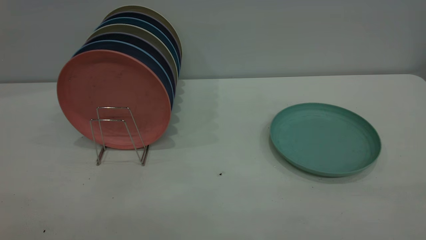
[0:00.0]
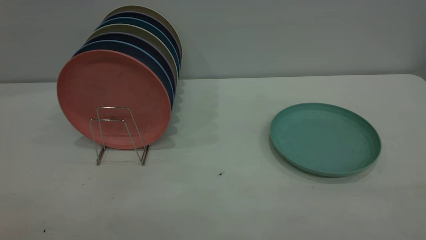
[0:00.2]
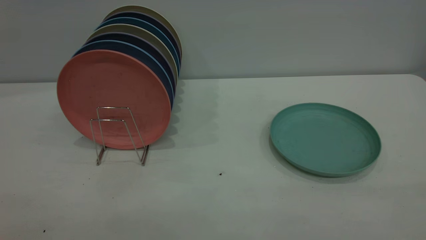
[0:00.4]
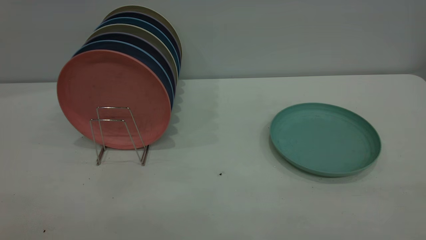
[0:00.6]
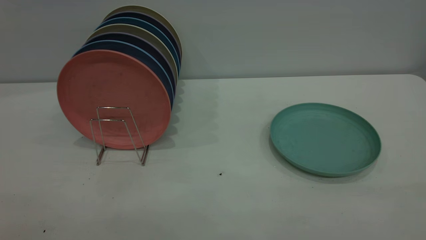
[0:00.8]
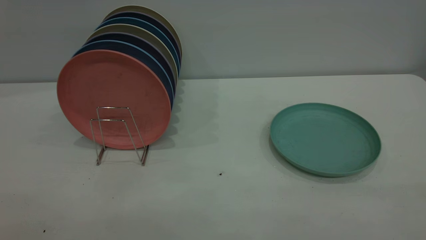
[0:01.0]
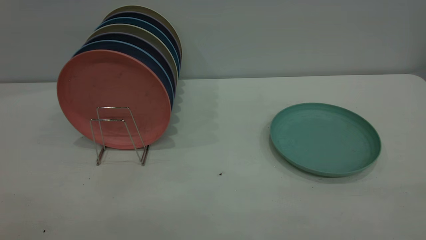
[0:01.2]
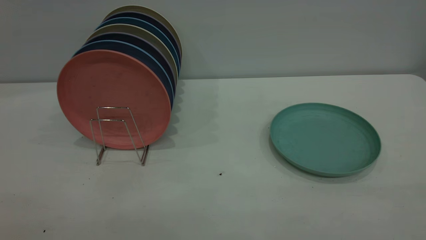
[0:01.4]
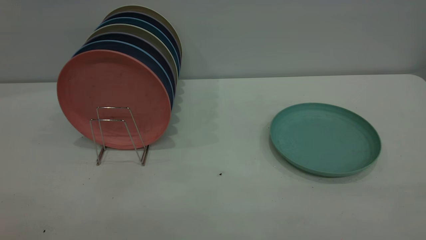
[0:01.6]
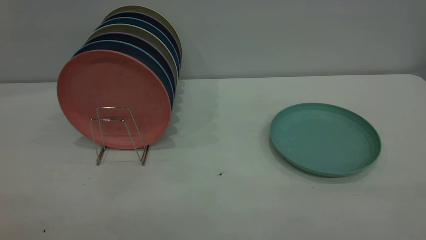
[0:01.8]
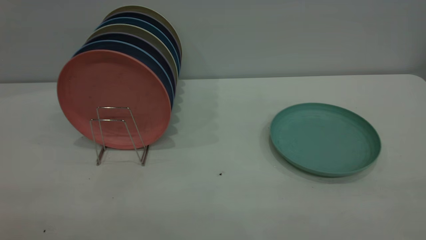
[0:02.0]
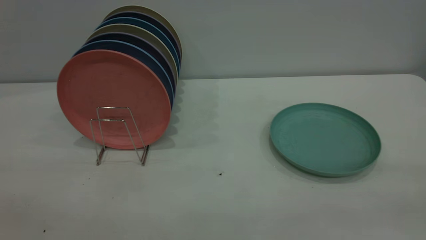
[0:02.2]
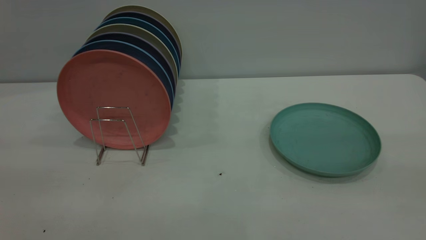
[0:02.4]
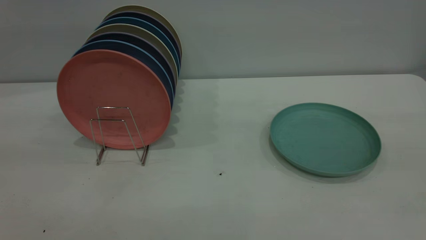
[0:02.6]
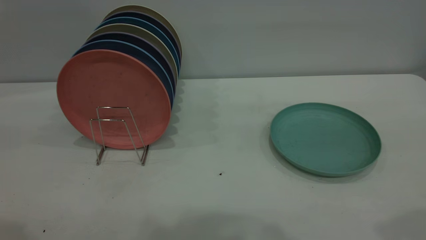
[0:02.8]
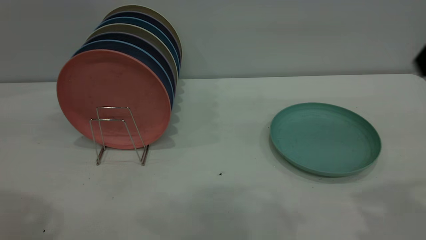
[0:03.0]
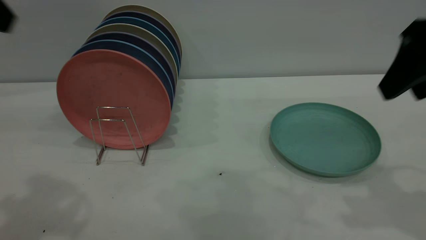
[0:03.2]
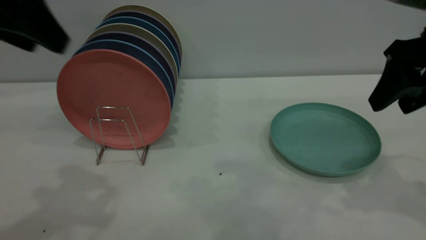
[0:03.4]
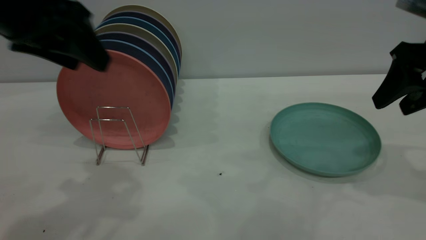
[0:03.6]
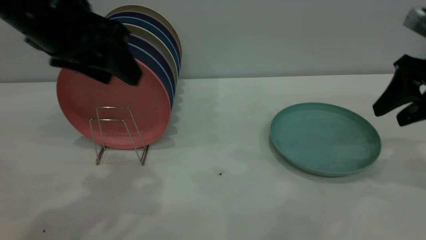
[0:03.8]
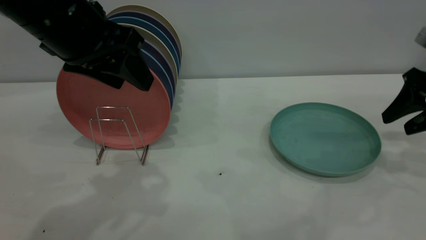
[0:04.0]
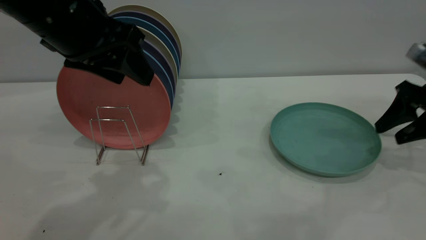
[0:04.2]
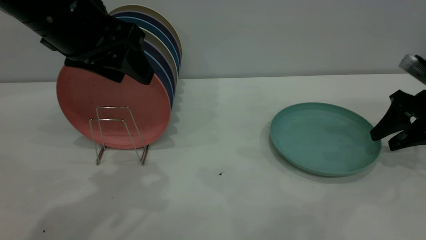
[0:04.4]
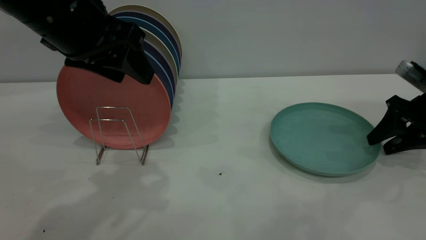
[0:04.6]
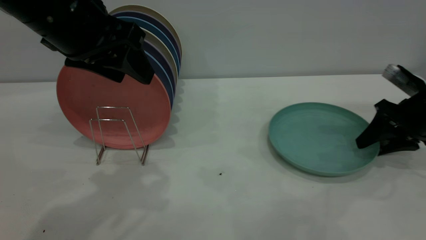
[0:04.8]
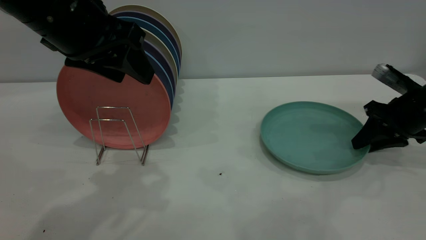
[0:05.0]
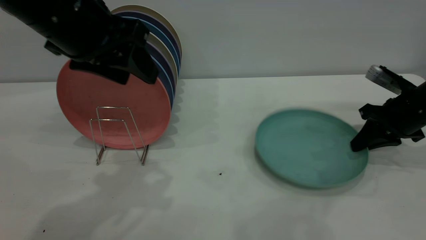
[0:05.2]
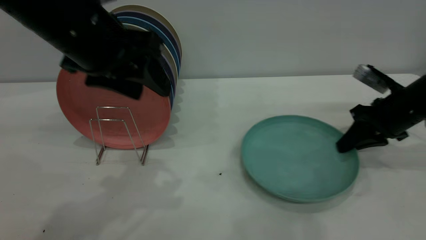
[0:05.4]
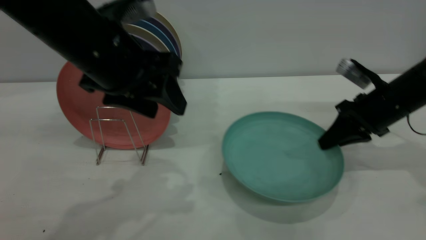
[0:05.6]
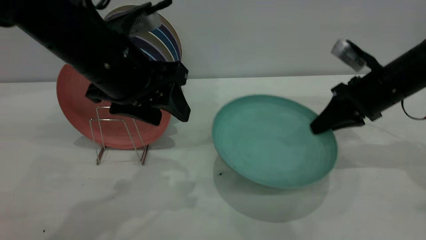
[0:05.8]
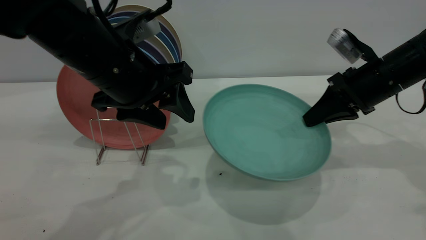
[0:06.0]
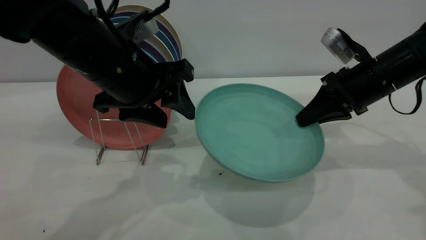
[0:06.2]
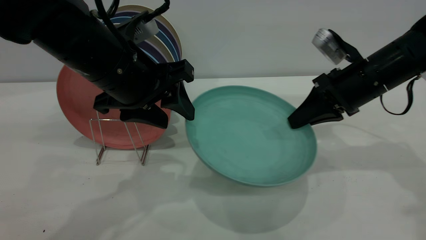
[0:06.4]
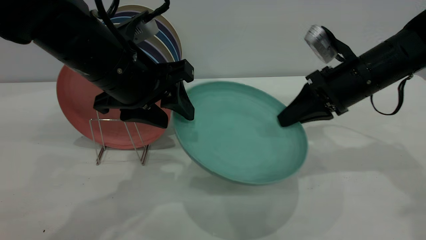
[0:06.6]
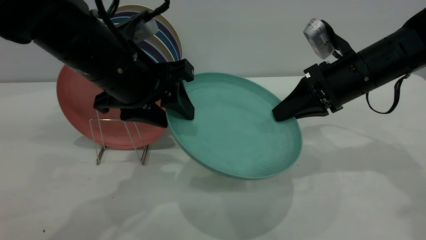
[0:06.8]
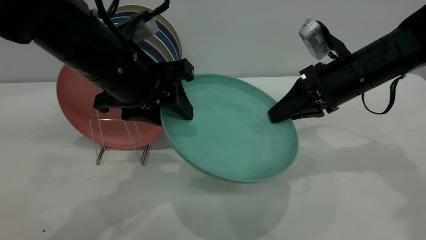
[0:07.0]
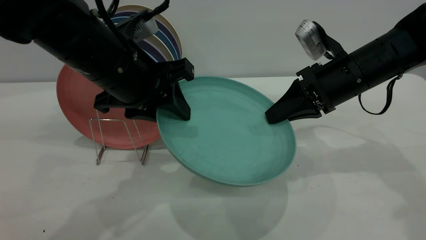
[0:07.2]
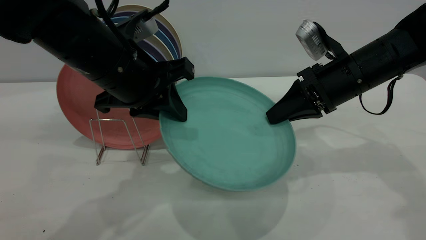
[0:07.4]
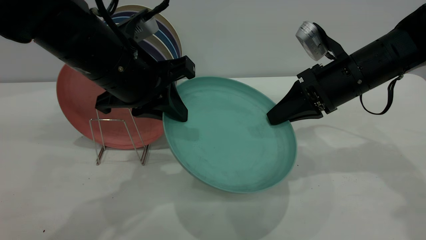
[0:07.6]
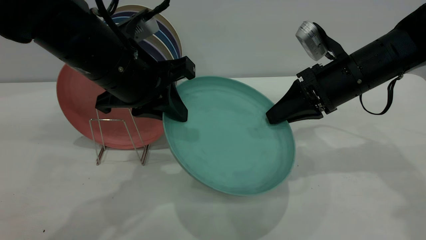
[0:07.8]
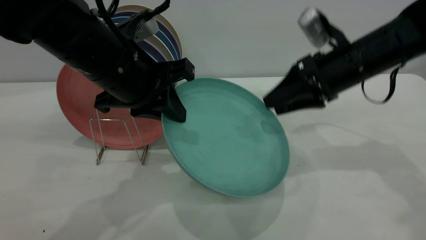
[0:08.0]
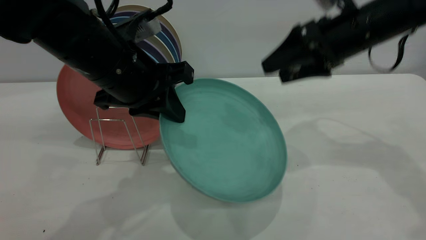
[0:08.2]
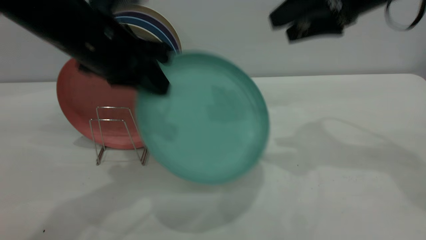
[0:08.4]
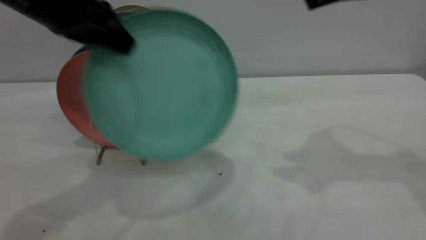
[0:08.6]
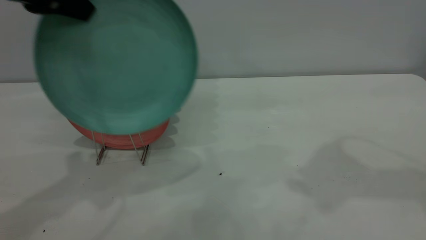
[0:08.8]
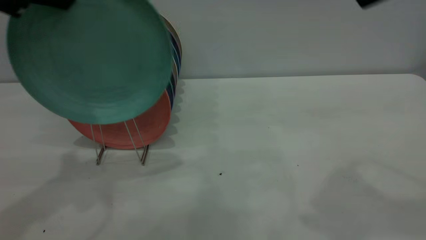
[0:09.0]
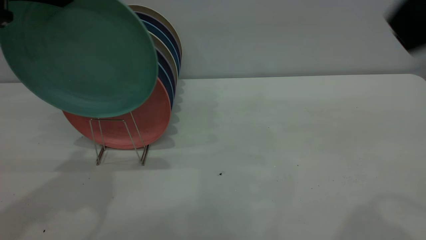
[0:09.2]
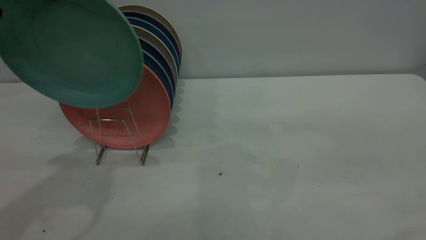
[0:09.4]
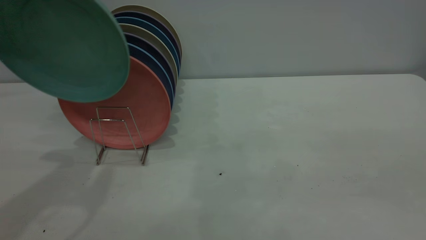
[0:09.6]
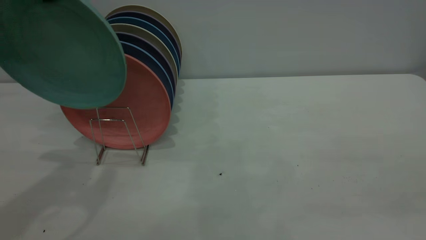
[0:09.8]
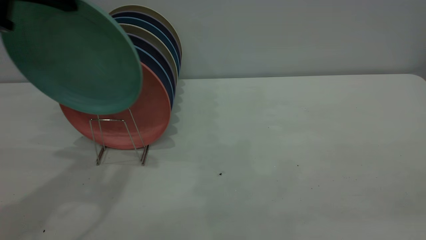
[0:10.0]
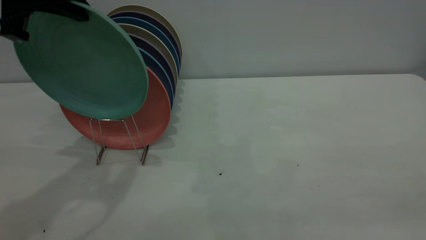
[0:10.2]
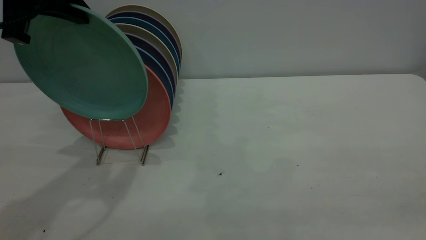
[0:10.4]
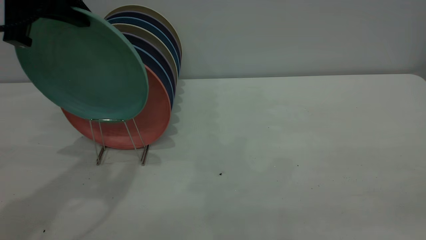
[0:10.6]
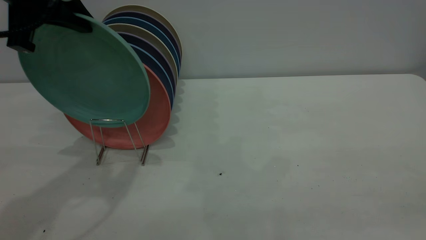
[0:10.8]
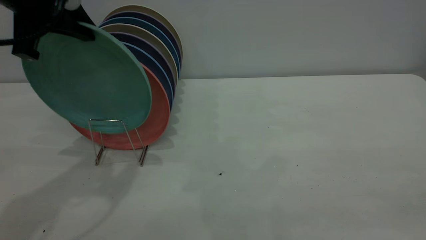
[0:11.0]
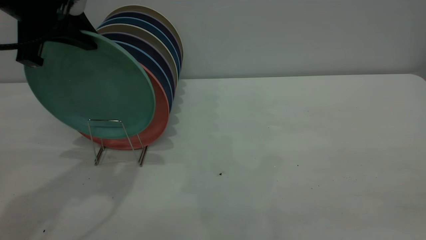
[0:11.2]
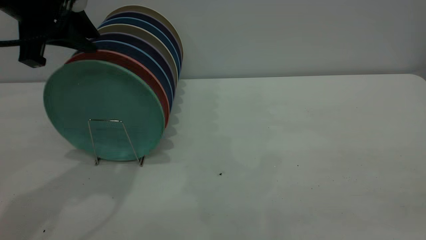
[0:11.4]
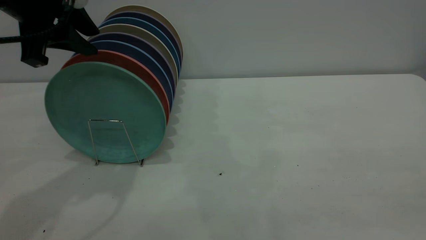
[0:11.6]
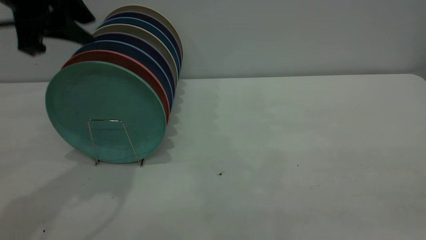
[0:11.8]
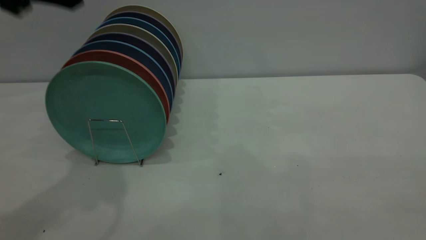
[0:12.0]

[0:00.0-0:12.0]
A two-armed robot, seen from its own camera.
Task of the whole recording: the right gripper grasp the green plate, the right gripper pass the green plate to the left gripper, and the left gripper place the green plate on the plate rack.
Step, 0:00.0 to 0:05.6: Pick up the plate with the right gripper.
Step, 0:05.8 to 0:08.0: Pass the plate from the right gripper to the left gripper.
Step, 0:08.2 to 0:11.6: Place the plate on the shelf.
0:00.0 to 0:01.6: Neither gripper changes place.
0:03.0 to 0:04.4: The right gripper heads downward, forward and to the right, covering roughly 30 cm; the left gripper goes some 20 cm to the right, downward and forward.
0:04.4 to 0:06.0: The left gripper shifts approximately 5 cm downward, while the right gripper travels to the left by about 10 cm, and closes.
0:06.0 to 0:07.6: The left gripper closes. The right gripper travels to the left by about 5 cm.
0:07.6 to 0:09.0: The right gripper heads upward and backward, covering about 25 cm, and opens up. The left gripper heads upward and to the left, covering some 20 cm.
0:09.0 to 0:10.4: The right gripper moves backward, roughly 20 cm.
0:10.4 to 0:12.0: The left gripper moves roughly 5 cm, and opens up.

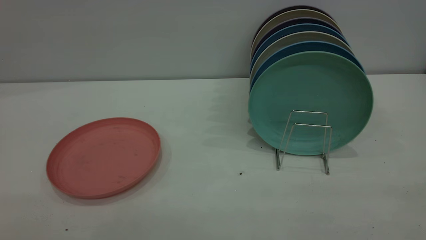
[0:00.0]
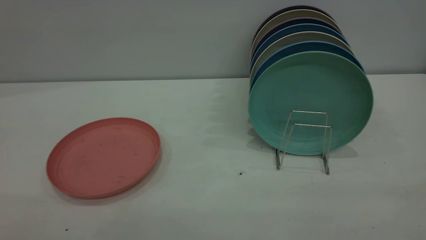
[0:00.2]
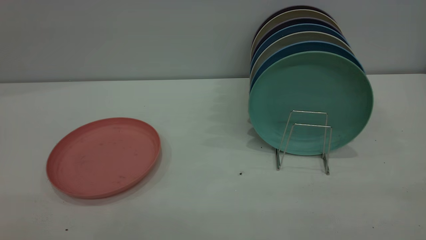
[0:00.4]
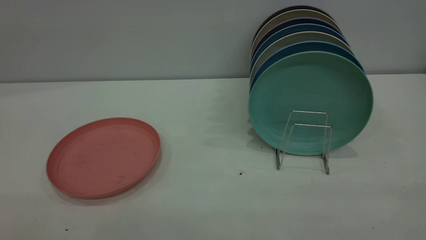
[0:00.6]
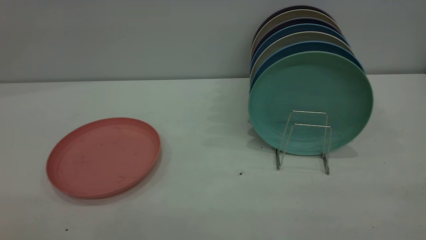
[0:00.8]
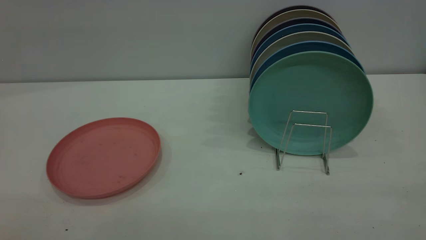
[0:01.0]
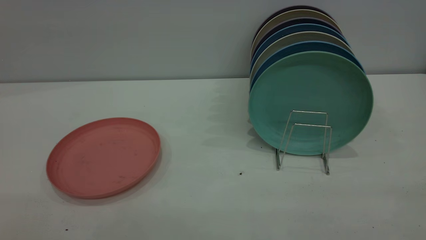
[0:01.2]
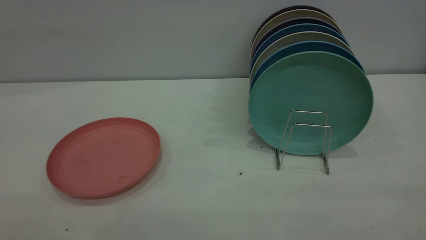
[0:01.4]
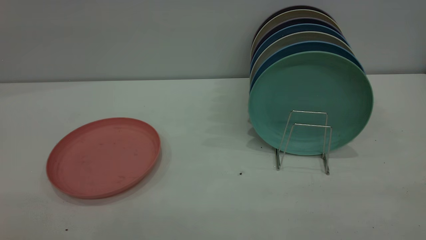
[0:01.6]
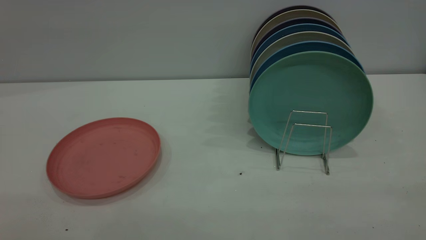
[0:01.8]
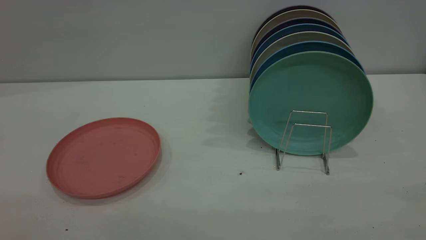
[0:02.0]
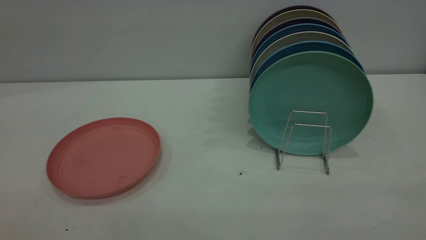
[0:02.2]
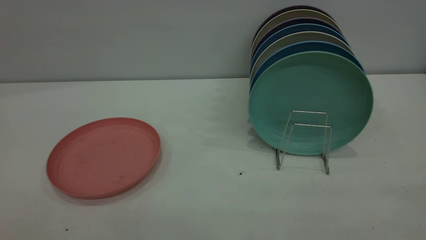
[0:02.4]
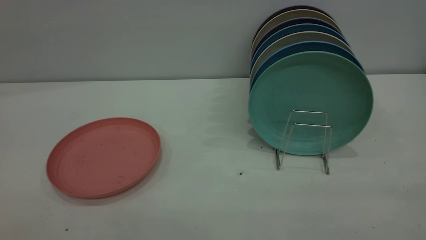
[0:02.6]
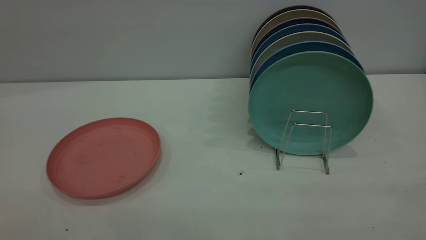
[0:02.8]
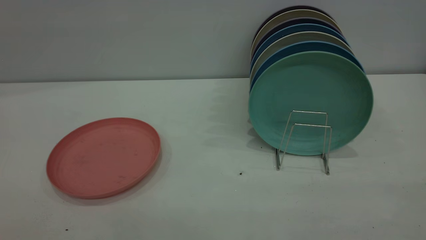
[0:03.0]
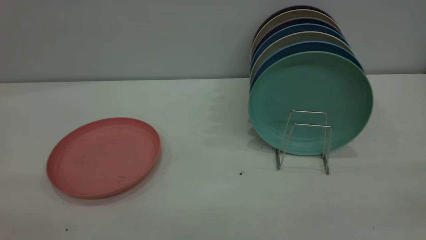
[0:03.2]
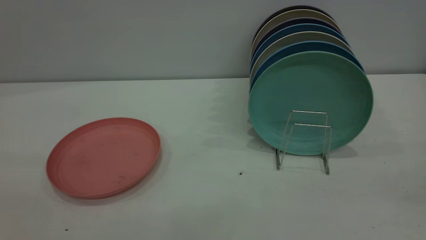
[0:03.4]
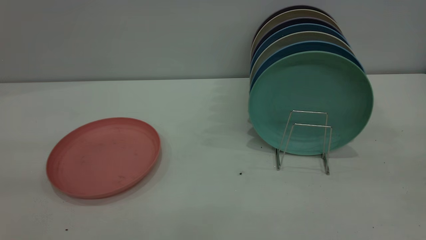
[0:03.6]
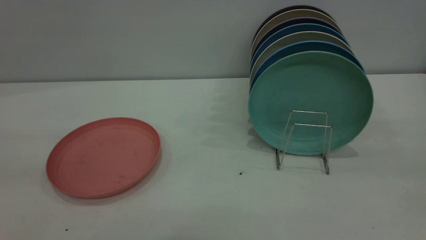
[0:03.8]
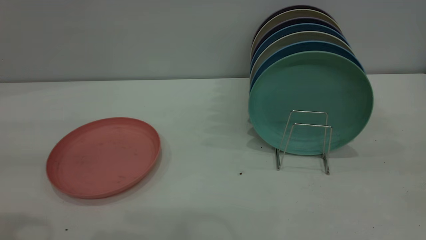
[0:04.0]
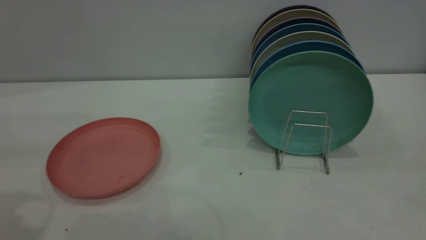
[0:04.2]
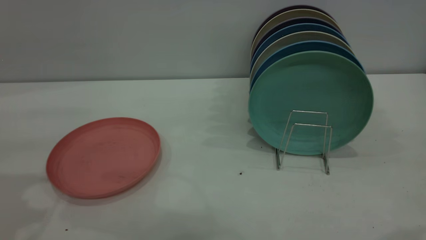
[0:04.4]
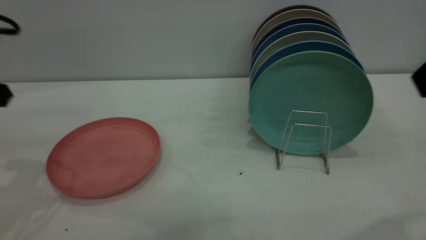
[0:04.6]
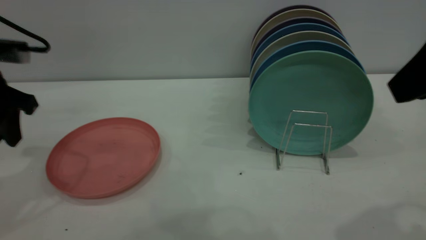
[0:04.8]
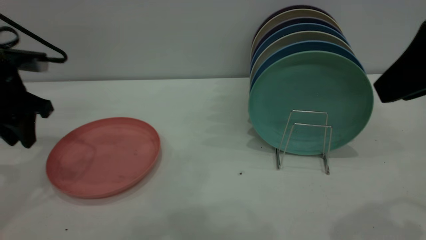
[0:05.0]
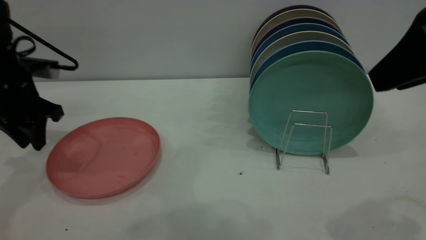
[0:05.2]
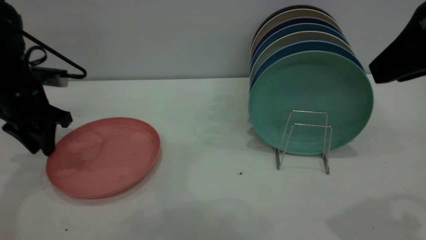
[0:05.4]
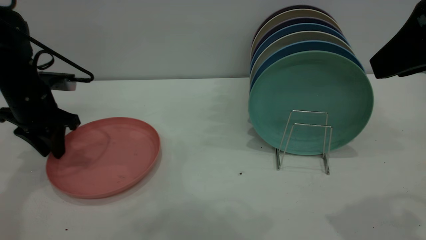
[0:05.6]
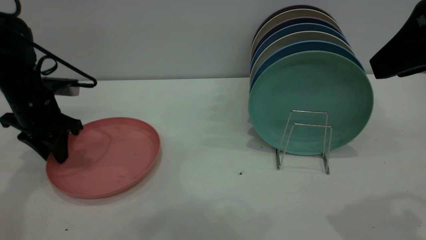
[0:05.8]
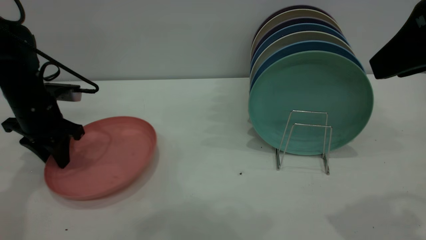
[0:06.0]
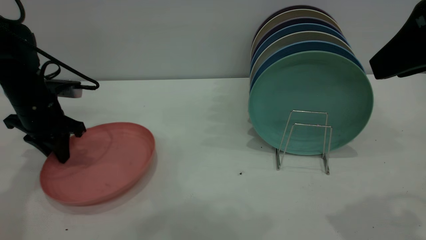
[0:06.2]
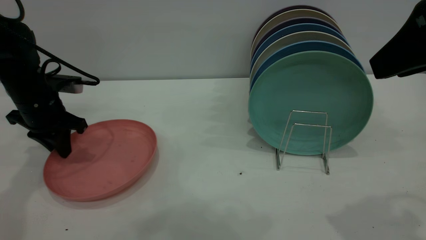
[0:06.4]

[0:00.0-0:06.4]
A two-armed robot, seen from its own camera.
Task of the whole recording: put the plate on the plate rack.
0:00.0 to 0:01.6: Both grippers stay about where they are.
0:03.2 to 0:04.8: The left gripper heads forward and downward, covering some 35 cm, while the right gripper is displaced forward and to the left by some 20 cm.
0:04.8 to 0:06.4: The left gripper shifts about 10 cm downward and forward.
